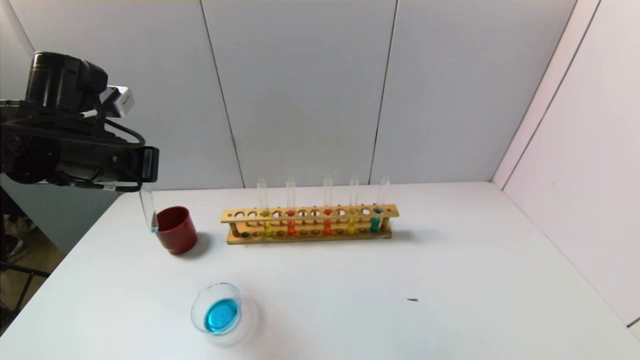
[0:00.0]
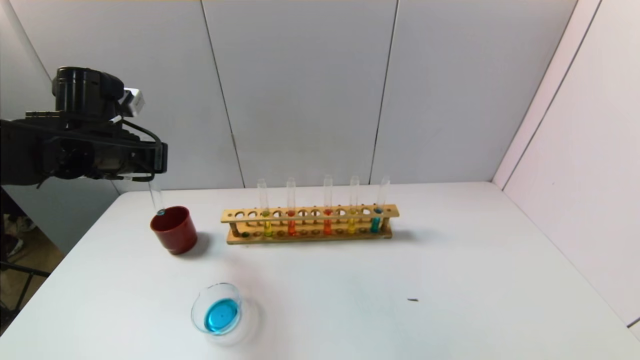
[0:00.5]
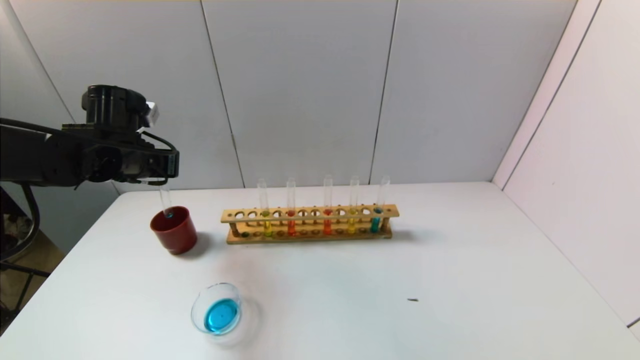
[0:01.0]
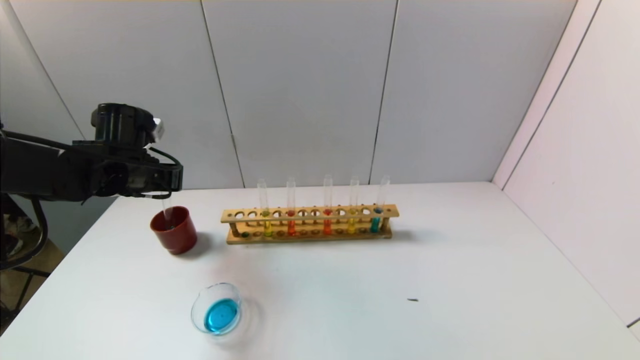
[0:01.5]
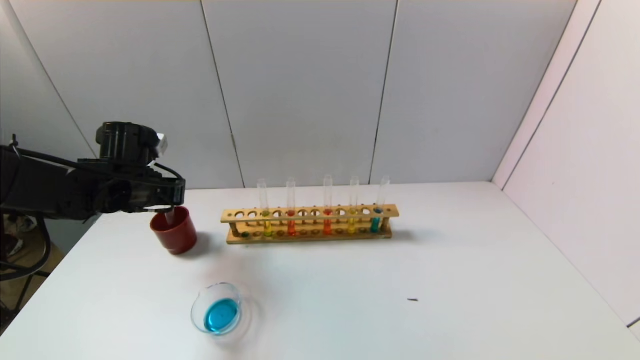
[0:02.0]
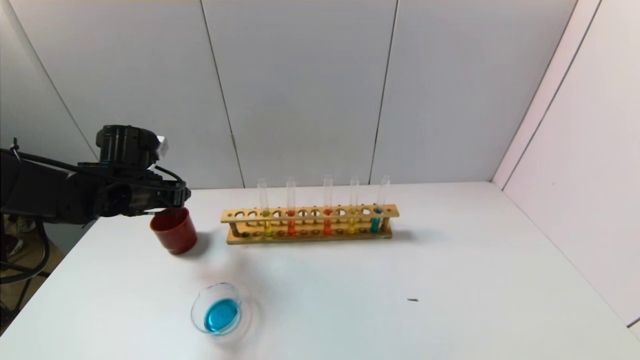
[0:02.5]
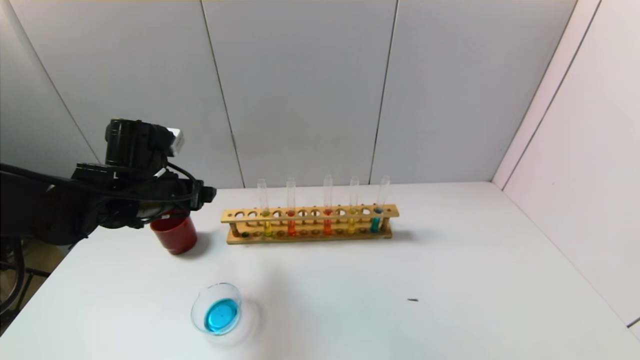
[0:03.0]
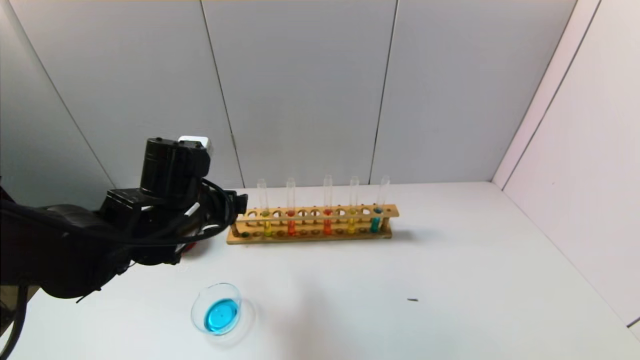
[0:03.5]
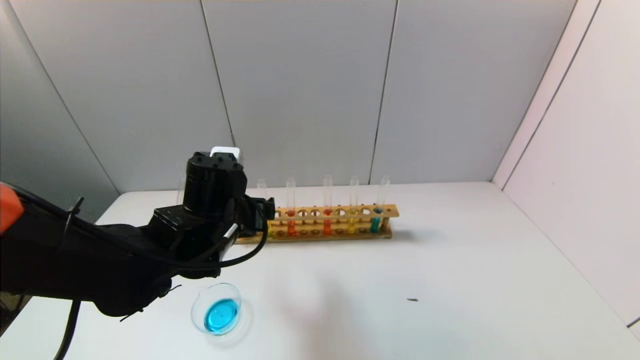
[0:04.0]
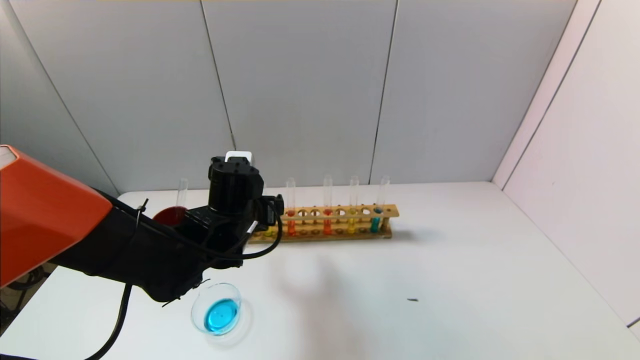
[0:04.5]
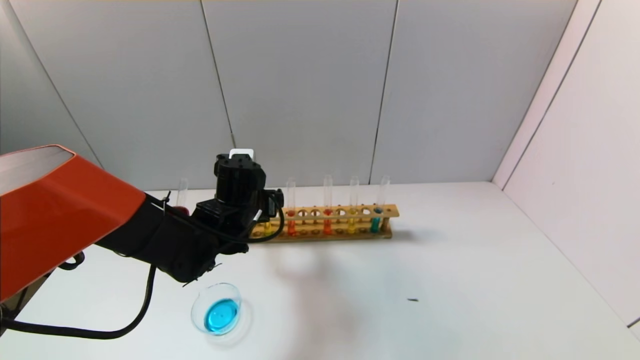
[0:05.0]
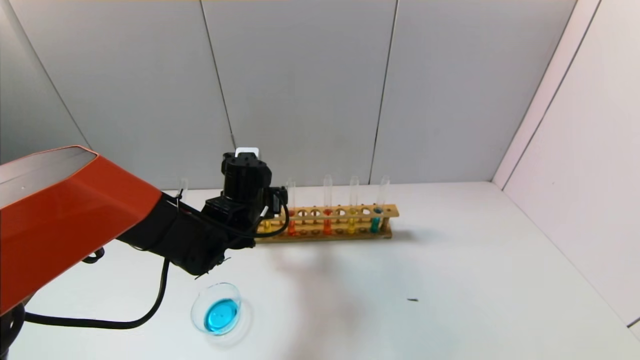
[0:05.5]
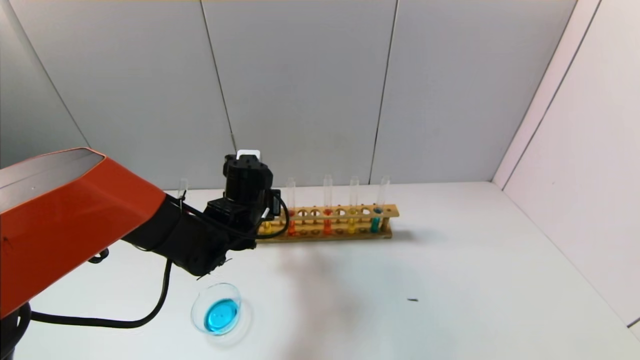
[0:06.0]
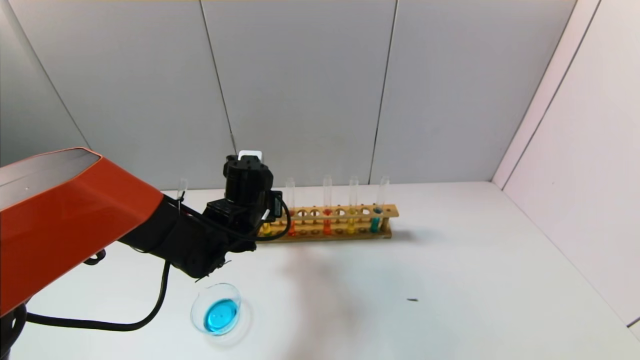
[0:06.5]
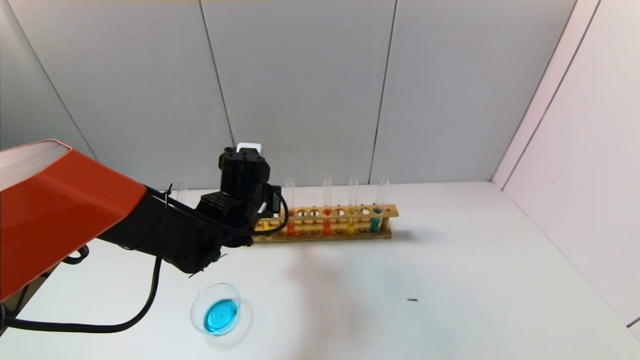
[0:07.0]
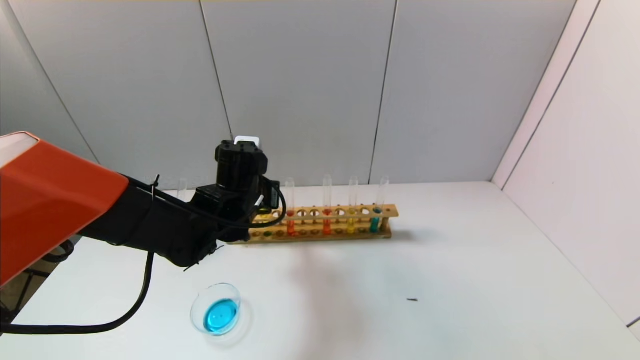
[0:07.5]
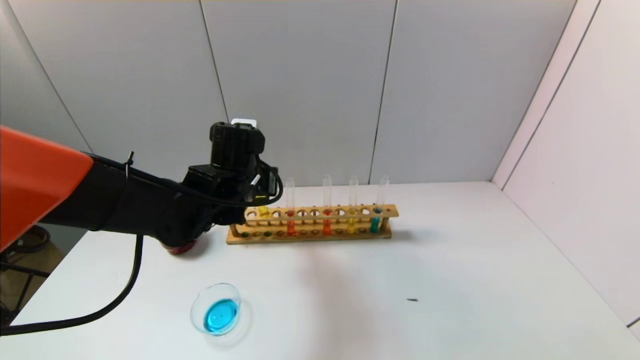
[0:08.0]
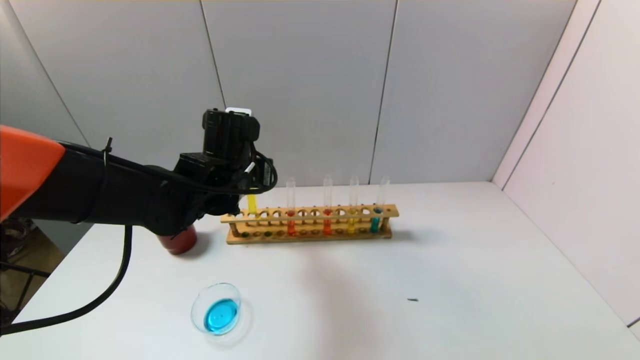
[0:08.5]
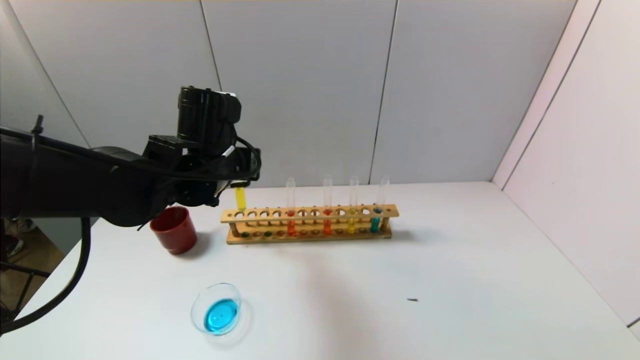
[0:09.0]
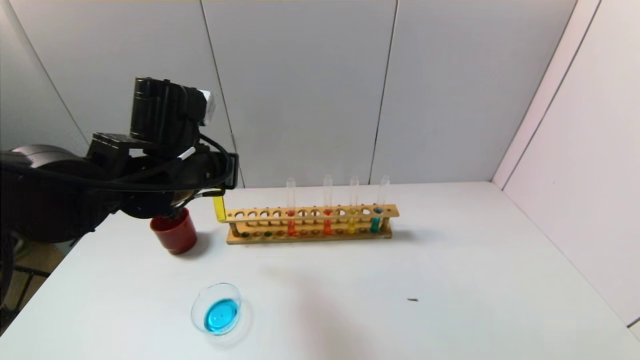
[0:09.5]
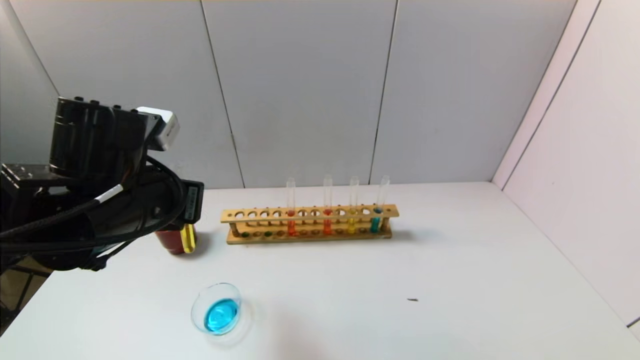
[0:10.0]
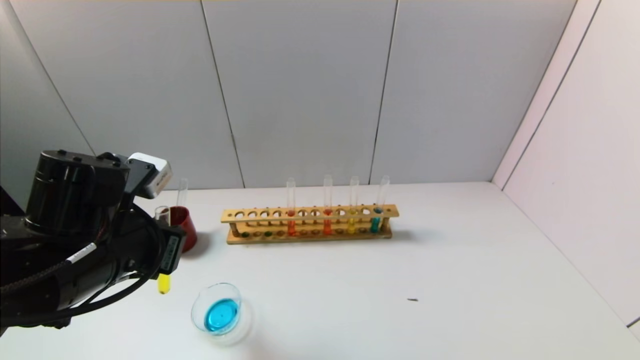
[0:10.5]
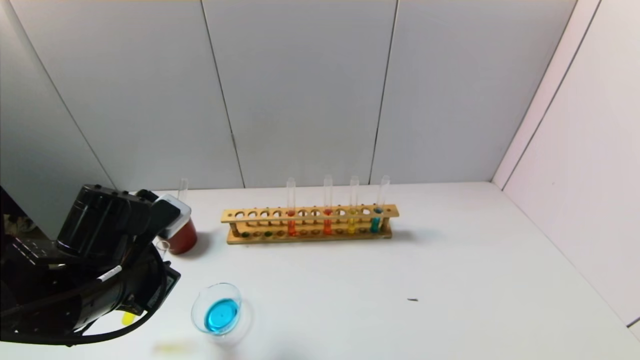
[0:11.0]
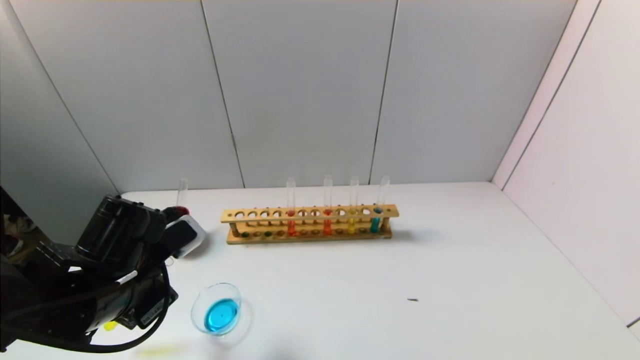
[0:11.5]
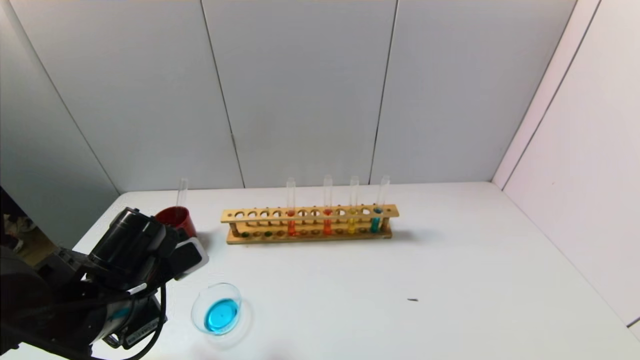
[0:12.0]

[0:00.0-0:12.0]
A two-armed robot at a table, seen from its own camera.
Task of the whole recording: pick up the test tube with yellow pigment and the test tube with blue pigment by grippers and pour them into the beaker.
Step, 0:00.0 to 0:02.5: Place the test tube into the brown cup with the left gripper.
Step, 0:03.0 to 0:06.5: Grasp the yellow reagent with the left gripper.
0:00.0 to 0:02.0: The left gripper shifts approximately 10 cm downward and forward.
0:02.0 to 0:04.0: The left gripper is displaced to the right and backward by roughly 15 cm, and opens up.
0:04.0 to 0:06.0: The left gripper travels forward by some 10 cm, and closes.
0:06.0 to 0:08.0: The left gripper goes about 5 cm upward.
0:08.0 to 0:10.0: The left gripper travels backward, to the left and upward by about 15 cm.
0:10.0 to 0:12.0: The left gripper moves downward, about 10 cm.

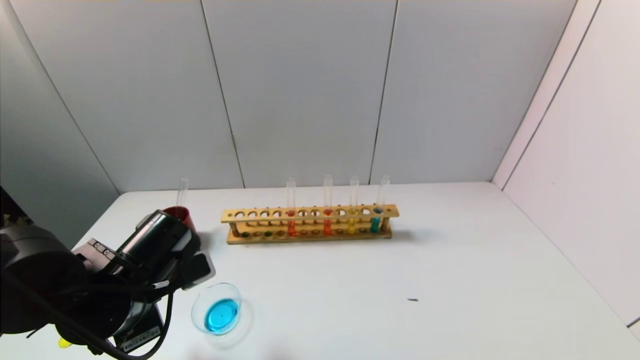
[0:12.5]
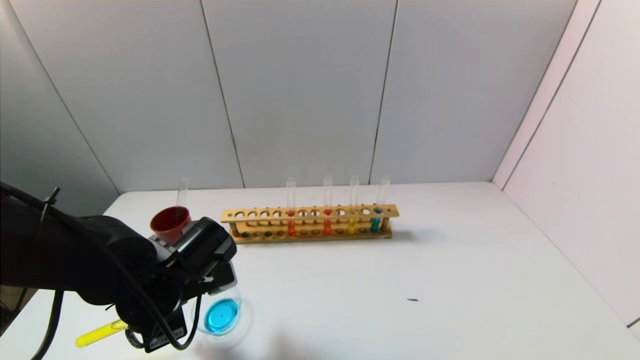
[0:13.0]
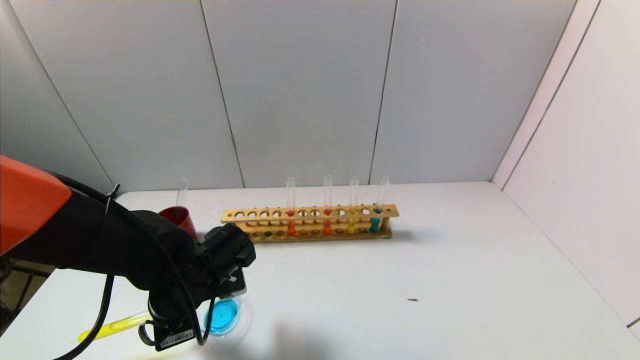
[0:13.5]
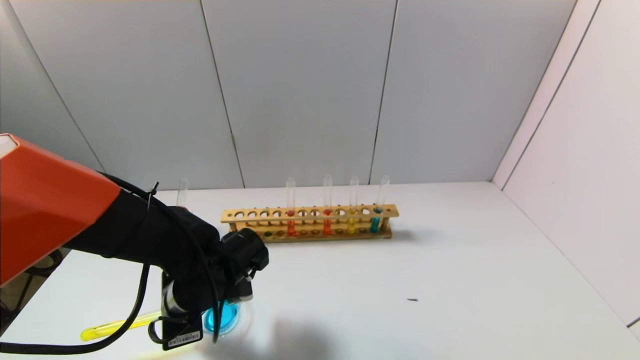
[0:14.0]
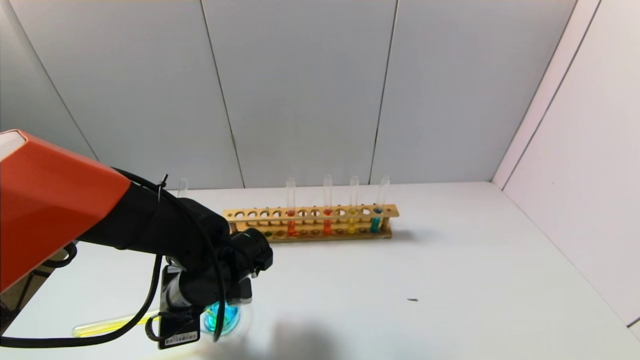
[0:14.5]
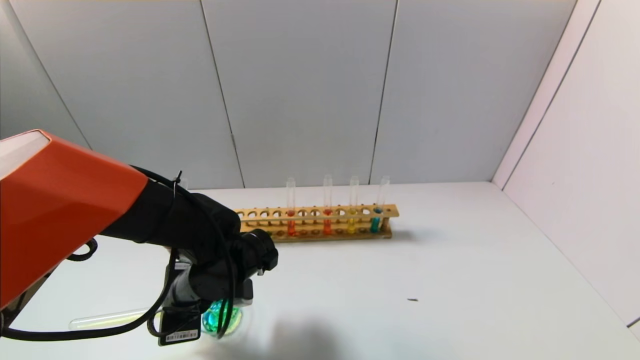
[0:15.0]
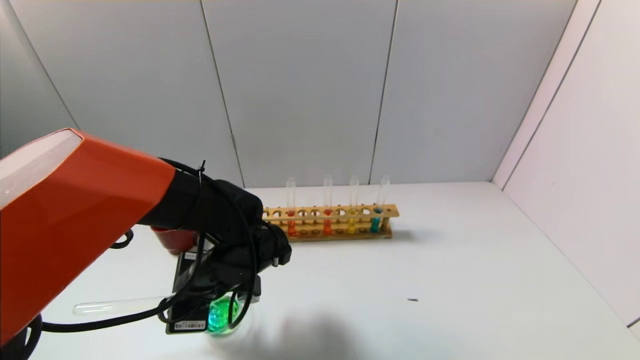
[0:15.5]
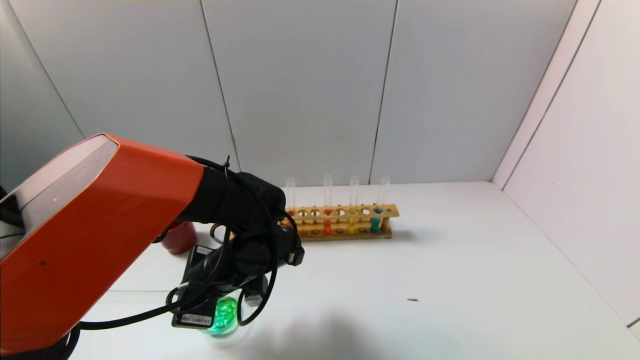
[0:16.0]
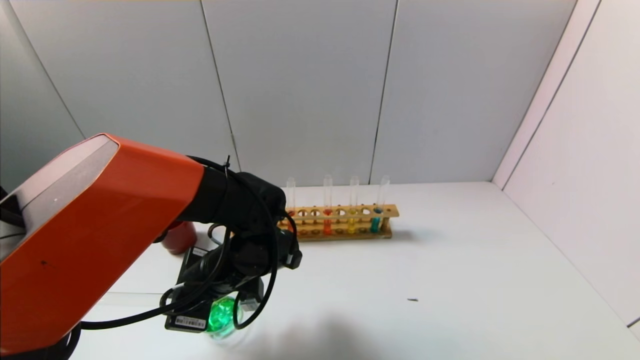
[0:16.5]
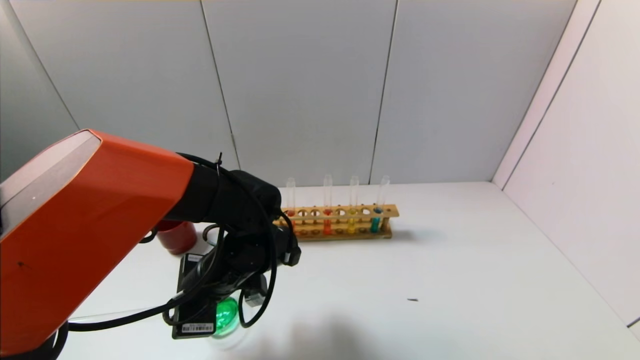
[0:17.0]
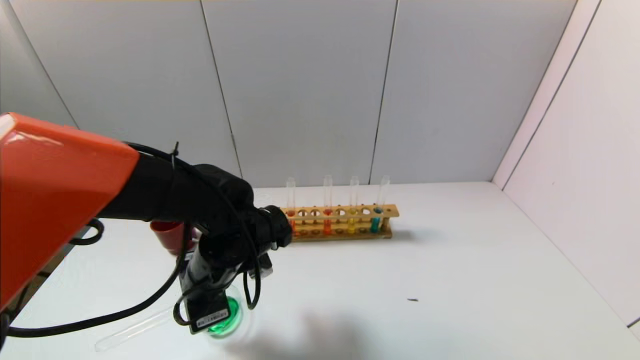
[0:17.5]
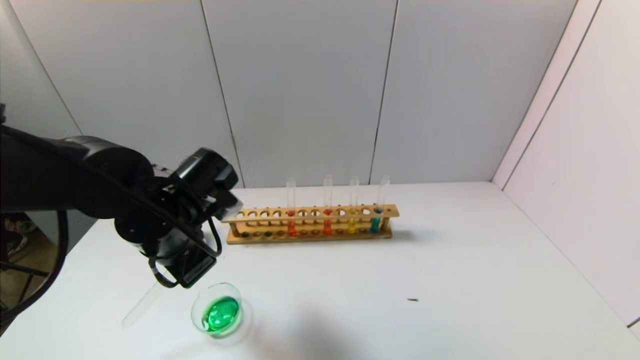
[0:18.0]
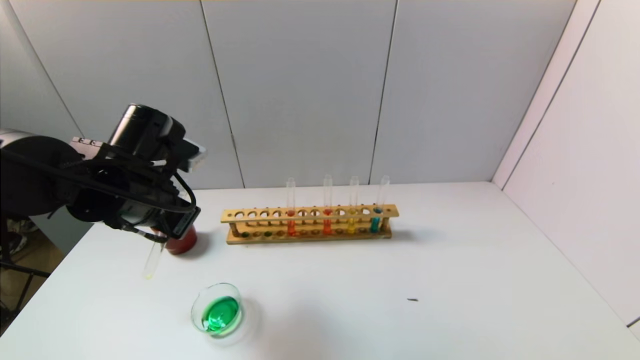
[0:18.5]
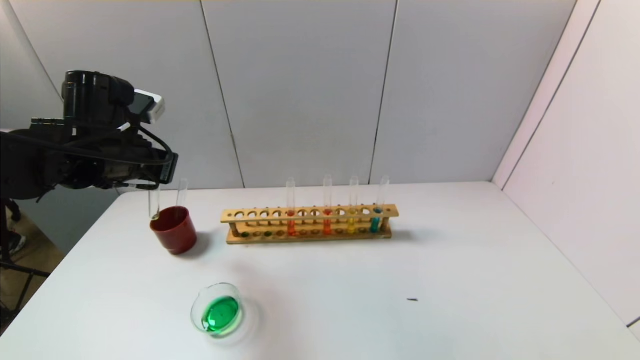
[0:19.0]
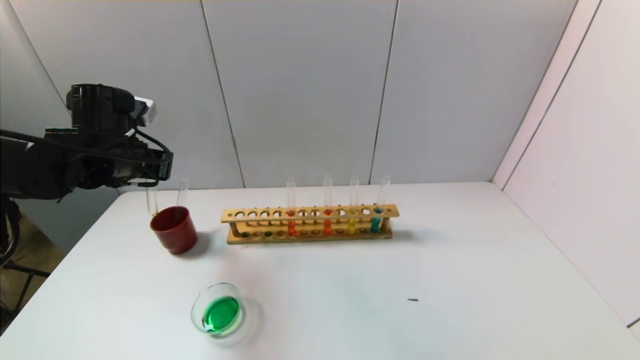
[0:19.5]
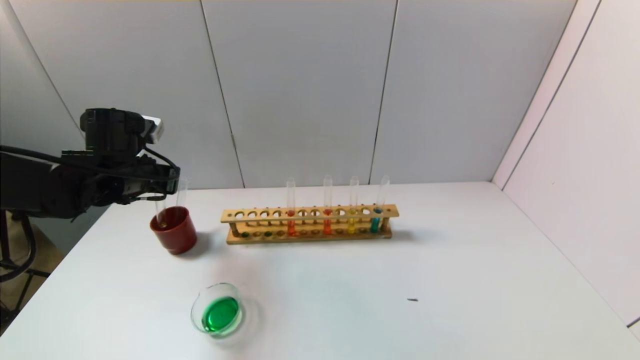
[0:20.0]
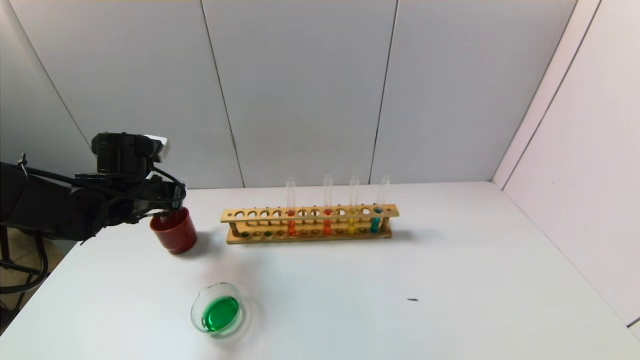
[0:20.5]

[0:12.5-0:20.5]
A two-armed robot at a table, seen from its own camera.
Task of the whole recording: pick up the test tube with yellow pigment and the test tube with blue pigment by grippers and pour them into the beaker.
Step, 0:12.5 to 0:17.0: Pour the yellow reagent into the graduated cylinder with the left gripper.
0:12.5 to 0:14.5: The left gripper is displaced to the right by about 5 cm.
0:16.5 to 0:18.5: The left gripper travels upward and to the left by approximately 15 cm.
0:18.5 to 0:20.5: The left gripper moves forward, to the left and downward, some 10 cm.
